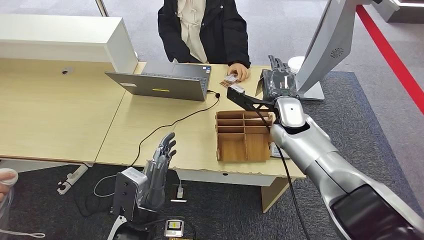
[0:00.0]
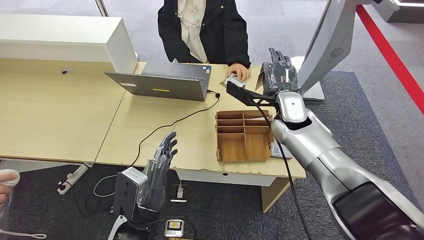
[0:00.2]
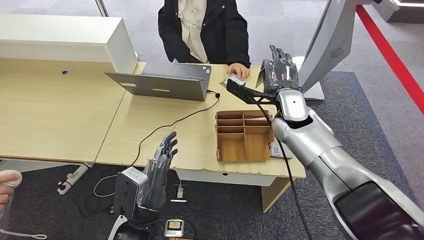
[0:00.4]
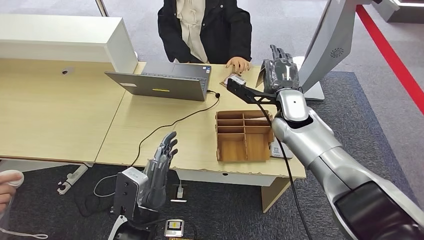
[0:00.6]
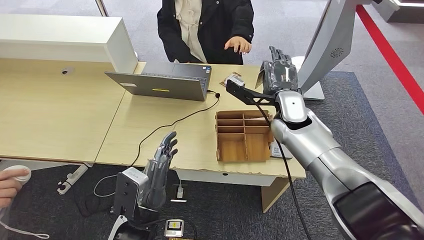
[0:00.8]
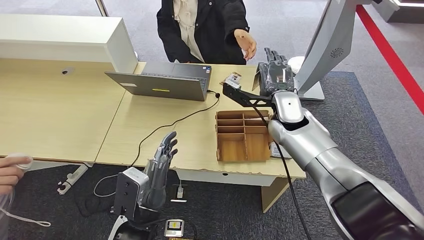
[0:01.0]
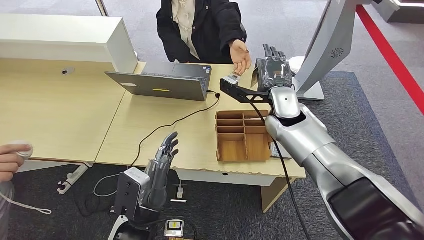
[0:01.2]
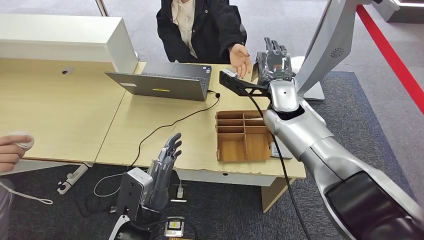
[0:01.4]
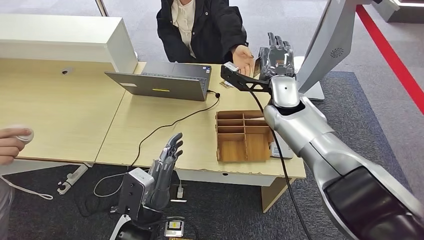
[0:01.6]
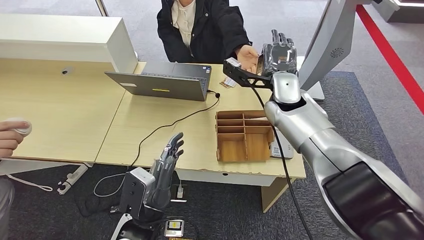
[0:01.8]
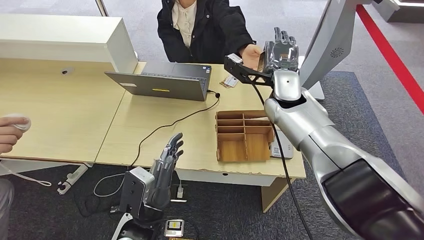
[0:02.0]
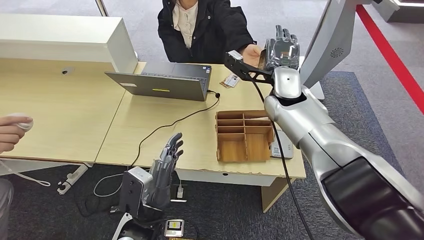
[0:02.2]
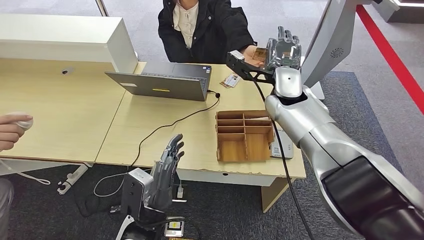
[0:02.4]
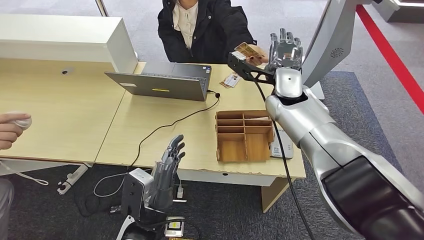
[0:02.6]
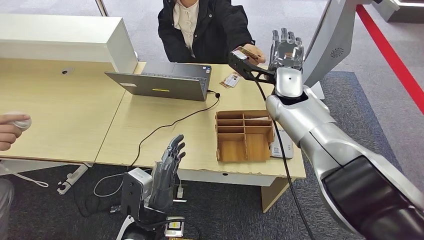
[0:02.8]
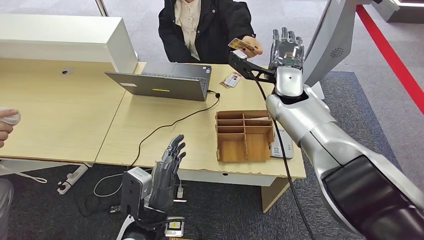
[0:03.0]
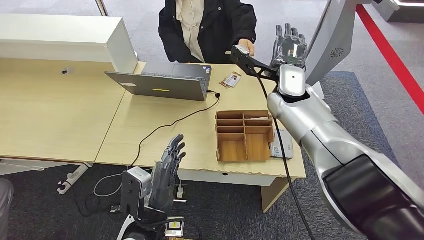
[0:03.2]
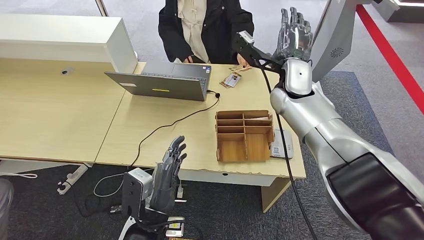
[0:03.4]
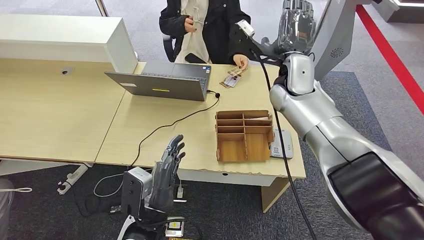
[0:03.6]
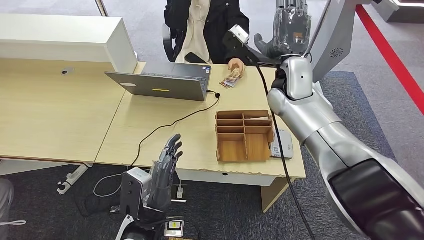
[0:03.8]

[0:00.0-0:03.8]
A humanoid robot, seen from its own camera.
Step, 0:01.0 to 0:03.8: Hand the room key to the person.
0:00.0 to 0:01.2: The hands move only a little.
0:01.2 to 0:02.6: The right hand shifts by some 5 cm.

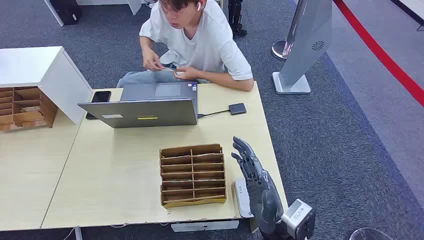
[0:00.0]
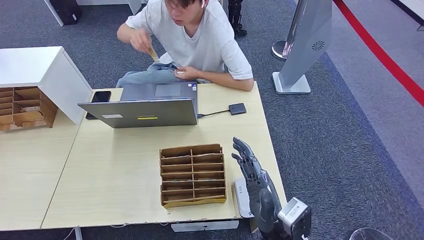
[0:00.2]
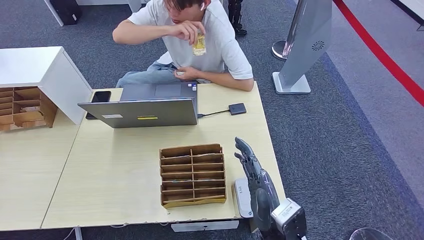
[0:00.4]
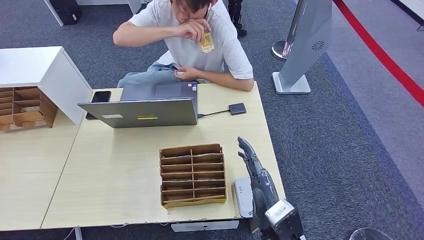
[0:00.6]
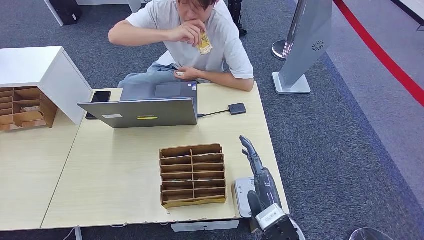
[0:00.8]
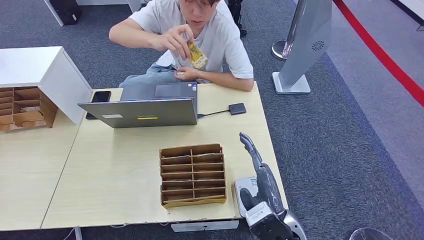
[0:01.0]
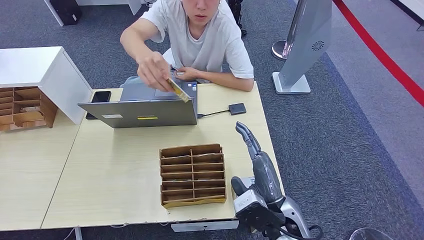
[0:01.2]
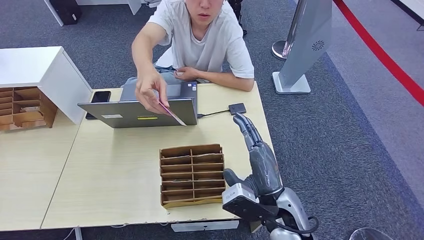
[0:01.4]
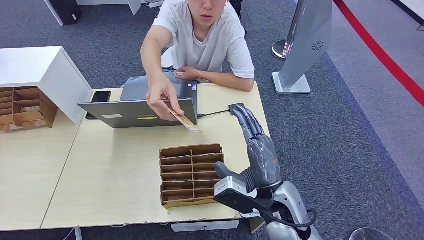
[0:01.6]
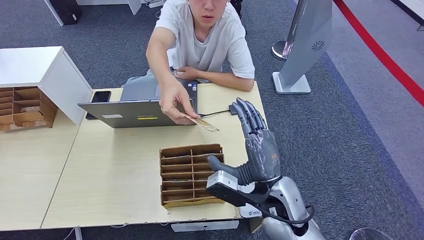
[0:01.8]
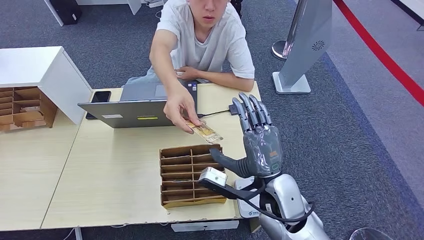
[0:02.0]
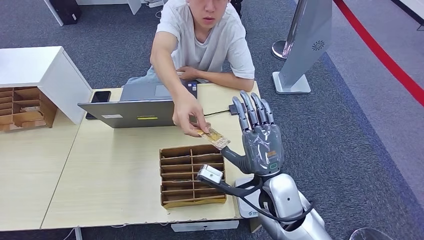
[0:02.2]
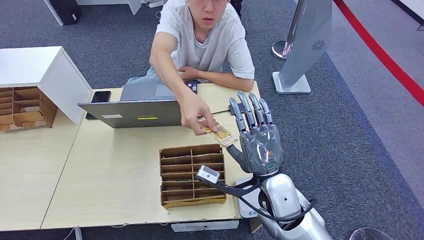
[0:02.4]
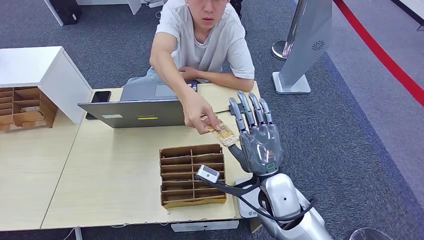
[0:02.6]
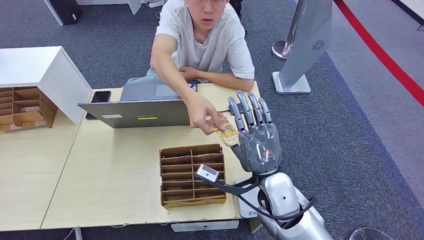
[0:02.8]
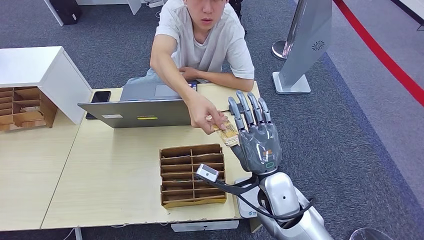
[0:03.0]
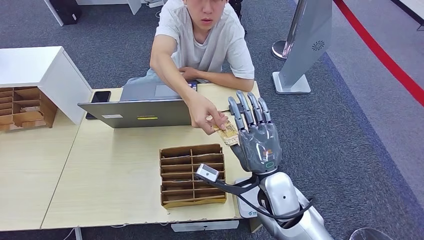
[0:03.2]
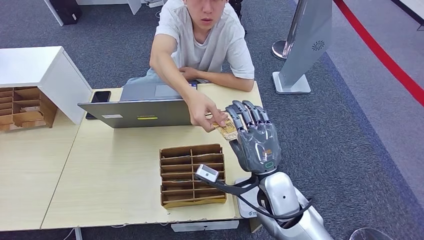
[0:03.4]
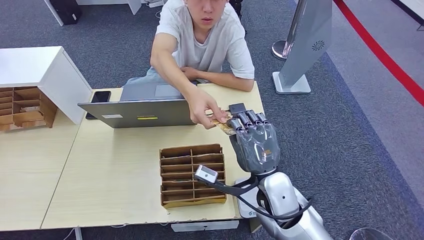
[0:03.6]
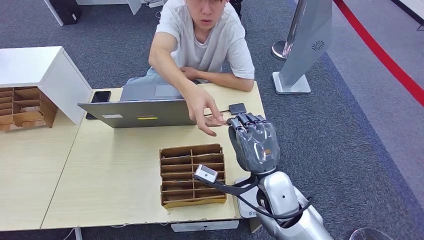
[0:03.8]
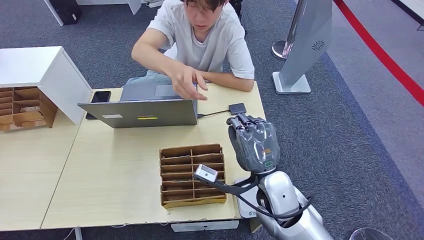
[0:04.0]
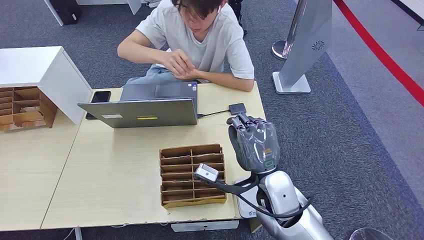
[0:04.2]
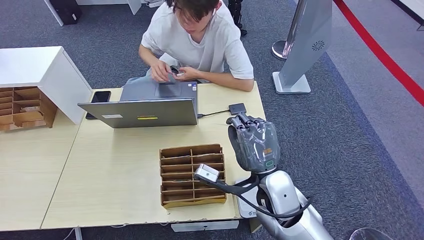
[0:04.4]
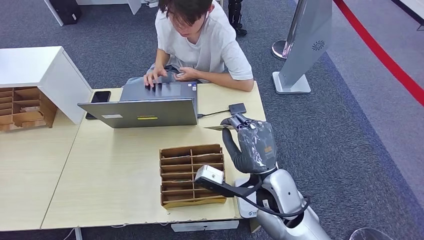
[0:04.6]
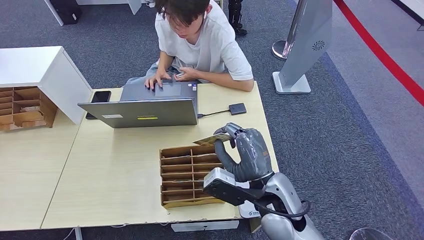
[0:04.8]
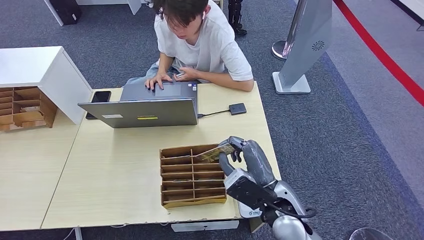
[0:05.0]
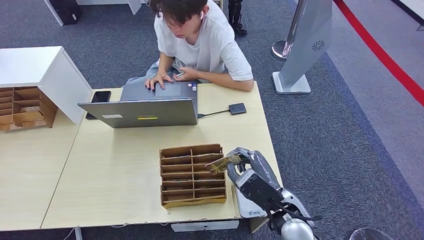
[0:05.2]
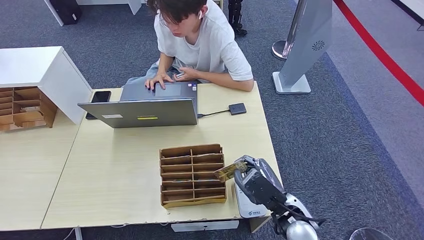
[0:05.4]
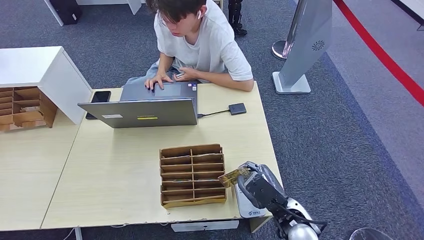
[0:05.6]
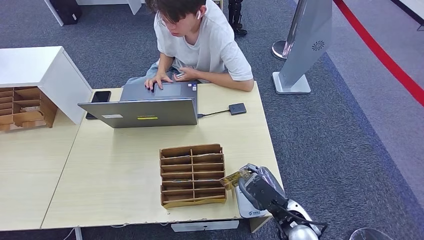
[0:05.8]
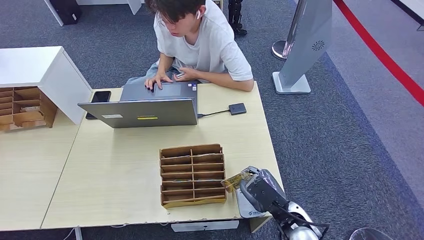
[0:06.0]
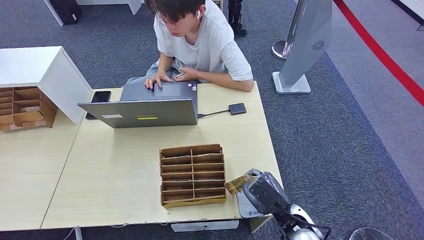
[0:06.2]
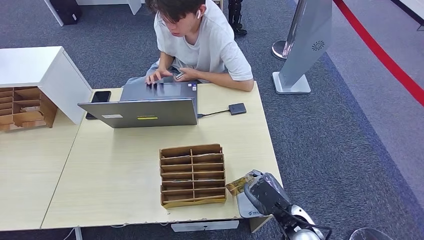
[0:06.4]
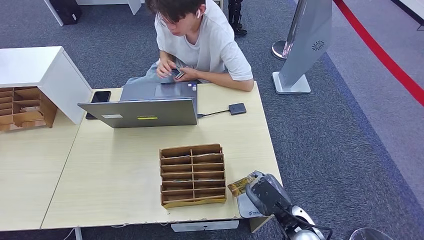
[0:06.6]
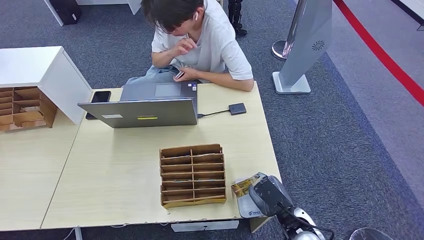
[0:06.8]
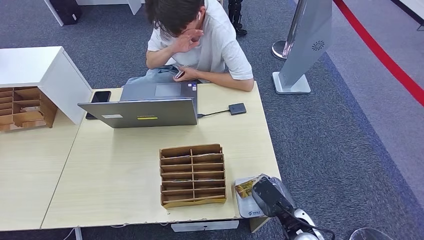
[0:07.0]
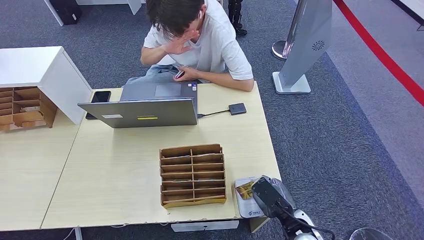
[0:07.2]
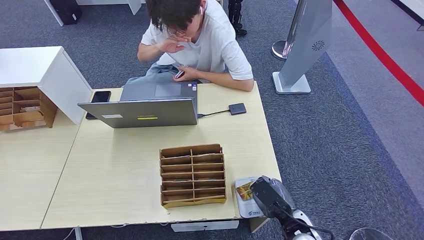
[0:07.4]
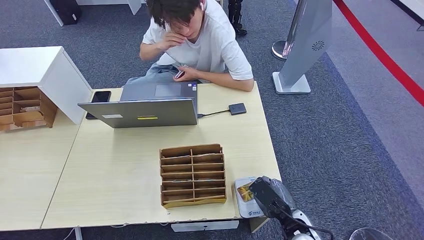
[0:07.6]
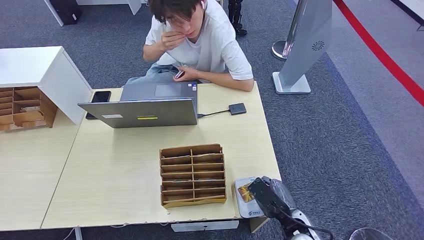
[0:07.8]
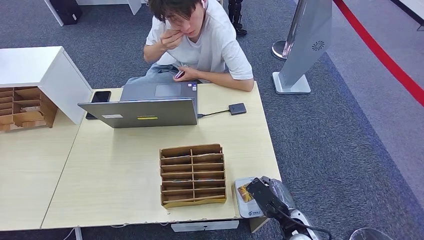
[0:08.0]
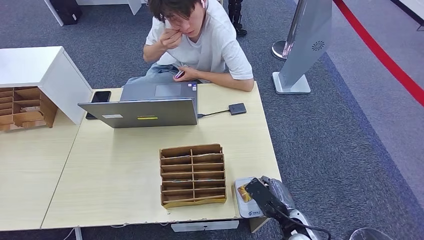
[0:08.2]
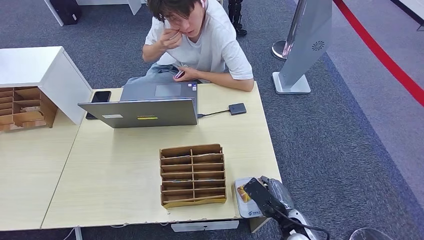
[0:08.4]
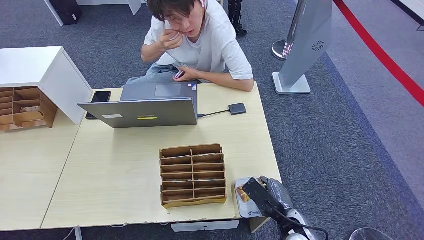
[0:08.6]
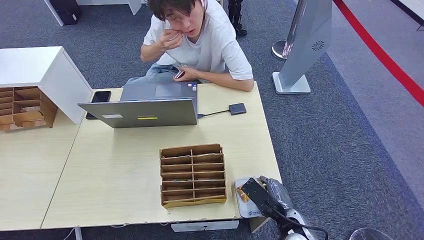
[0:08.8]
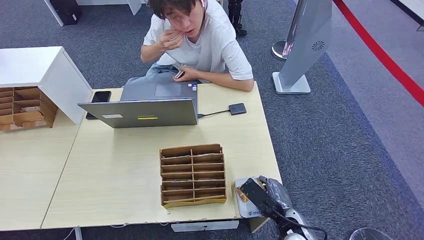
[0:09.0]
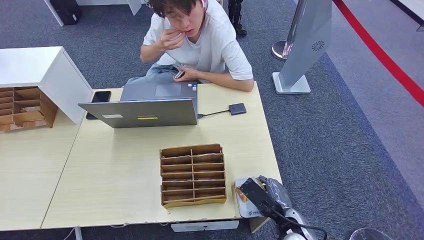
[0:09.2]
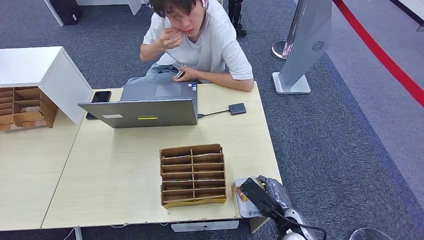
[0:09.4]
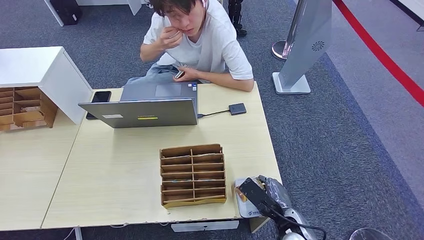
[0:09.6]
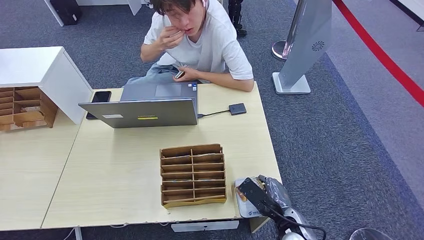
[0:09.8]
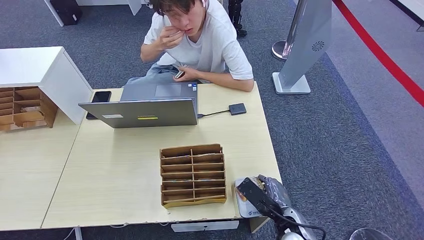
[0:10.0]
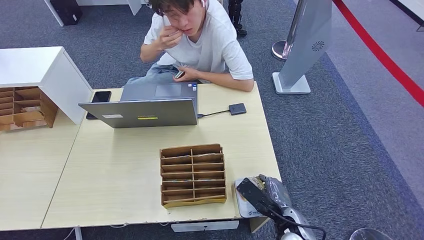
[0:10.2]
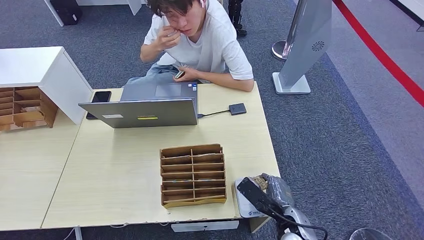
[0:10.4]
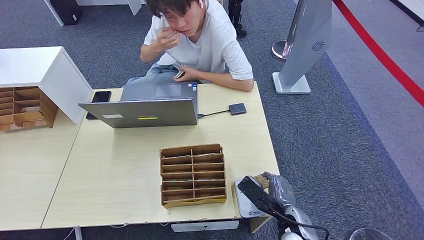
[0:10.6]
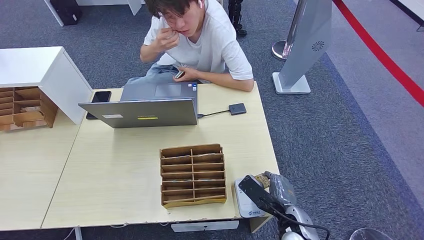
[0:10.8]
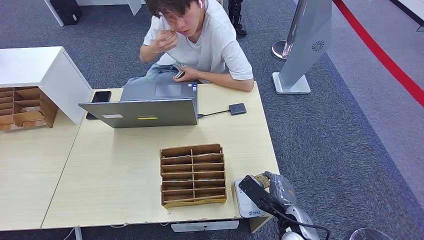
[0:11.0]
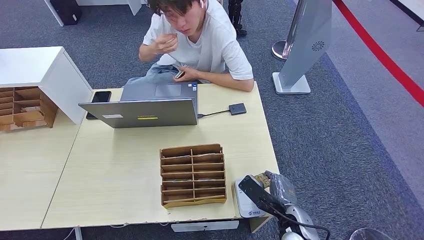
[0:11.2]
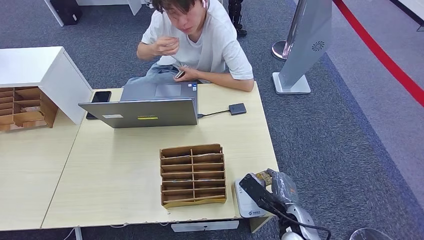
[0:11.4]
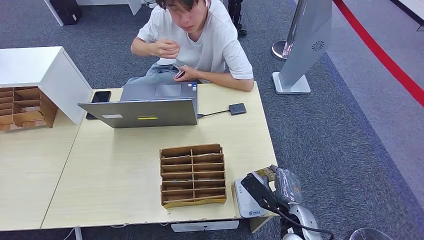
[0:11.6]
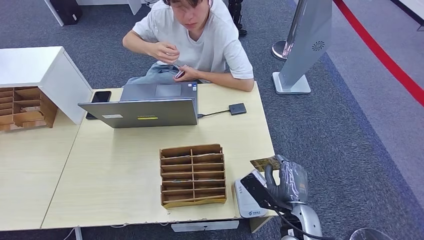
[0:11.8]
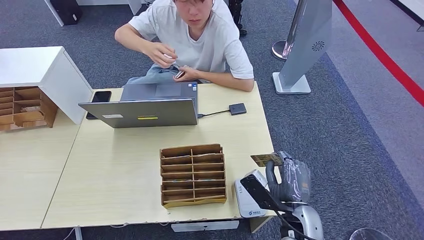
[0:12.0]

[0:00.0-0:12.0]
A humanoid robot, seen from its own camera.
Step, 0:00.0 to 0:04.2: Take the ID card from the person's hand.
Step, 0:04.4 to 0:07.8: Place the ID card on the card reader.
0:03.0 to 0:04.4: The hands make only small movements.
0:04.4 to 0:06.0: The right hand goes approximately 15 cm downward, to the right and backward.
0:06.0 to 0:07.6: The hands move only a little.
0:07.6 to 0:10.4: The hands stay close to where they were, moving slightly.
0:10.4 to 0:12.0: The right hand shifts about 5 cm upward.

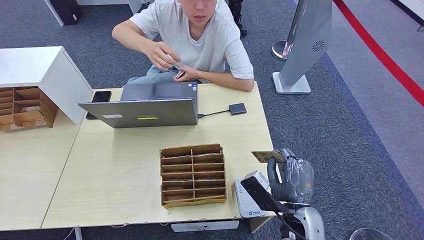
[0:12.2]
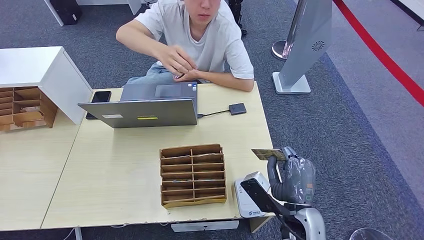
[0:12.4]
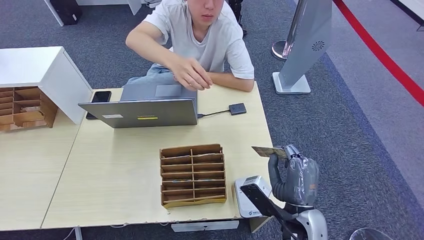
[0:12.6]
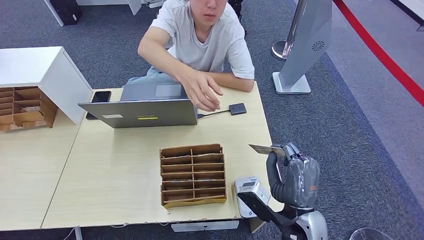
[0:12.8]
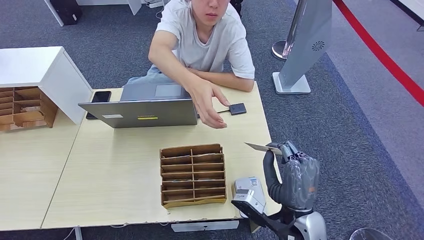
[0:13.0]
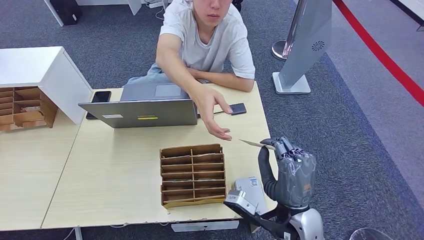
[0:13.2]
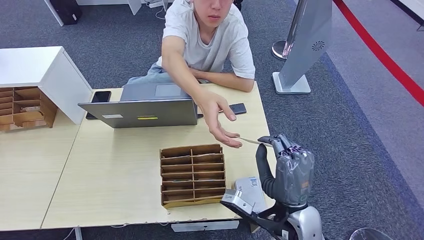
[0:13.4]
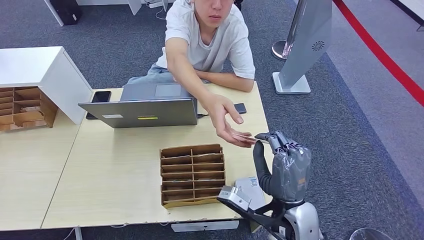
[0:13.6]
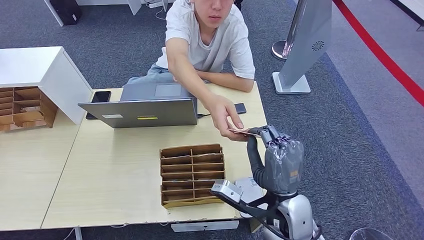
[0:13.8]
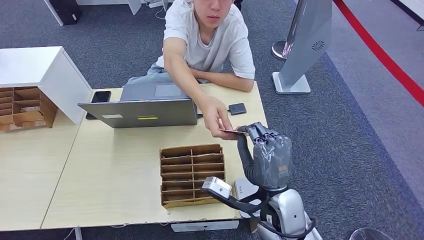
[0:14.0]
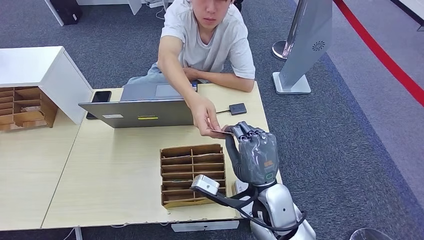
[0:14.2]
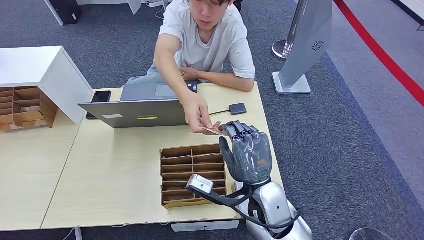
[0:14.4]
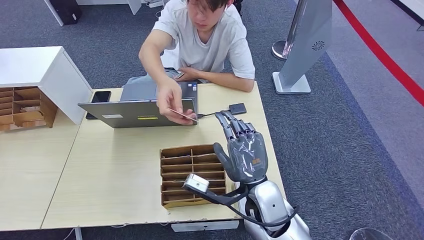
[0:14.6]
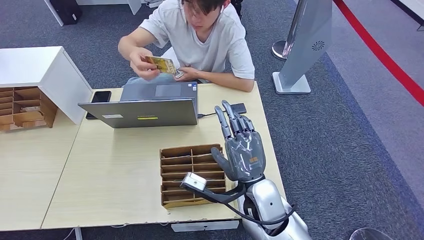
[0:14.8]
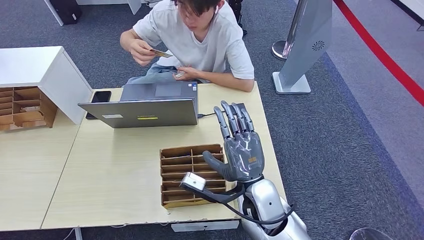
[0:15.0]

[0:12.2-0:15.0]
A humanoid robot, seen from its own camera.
0:12.2 to 0:13.6: The right hand is displaced upward by approximately 5 cm.
0:13.6 to 0:15.0: The right hand goes about 5 cm to the left.
